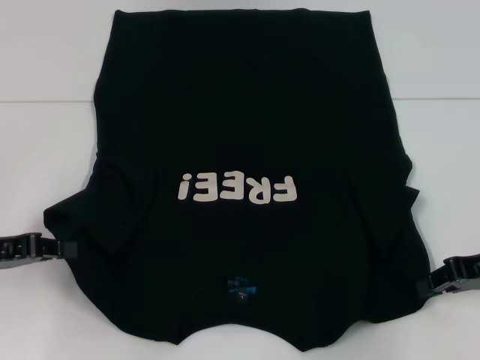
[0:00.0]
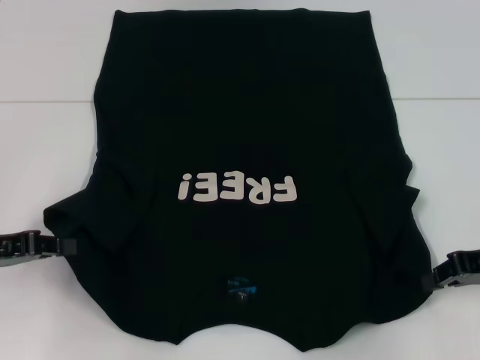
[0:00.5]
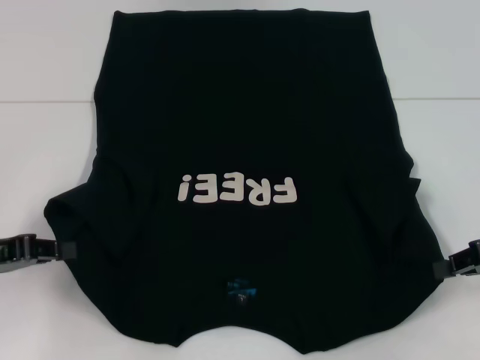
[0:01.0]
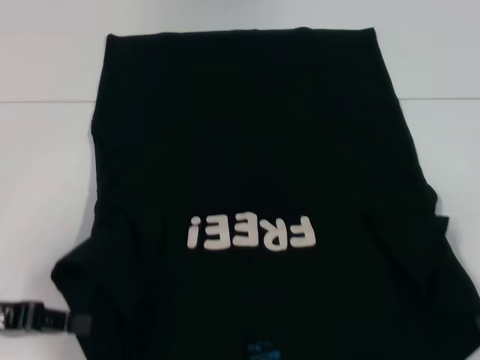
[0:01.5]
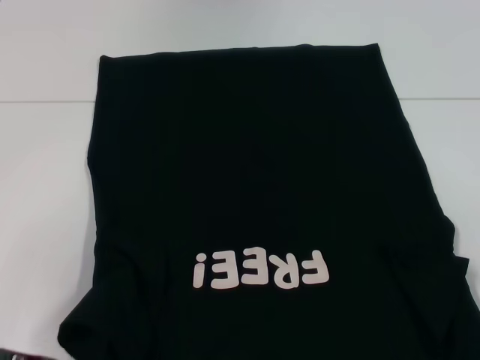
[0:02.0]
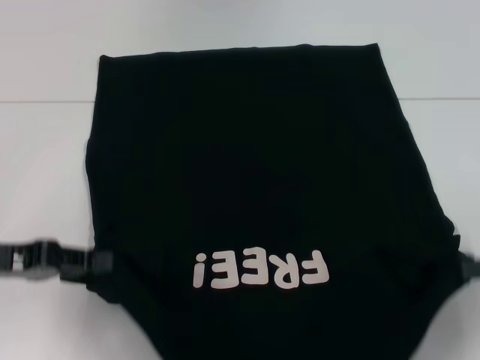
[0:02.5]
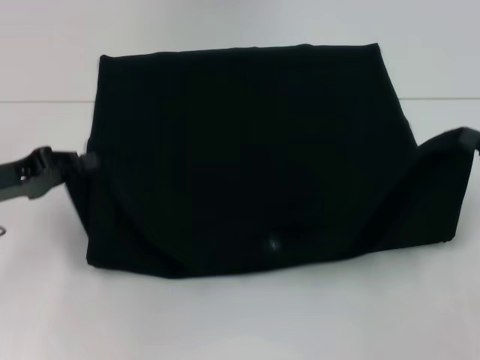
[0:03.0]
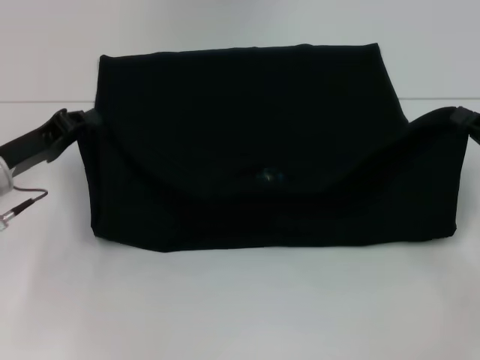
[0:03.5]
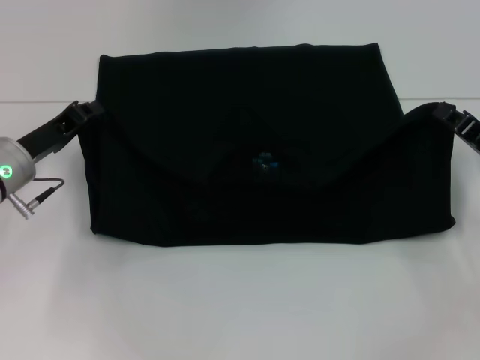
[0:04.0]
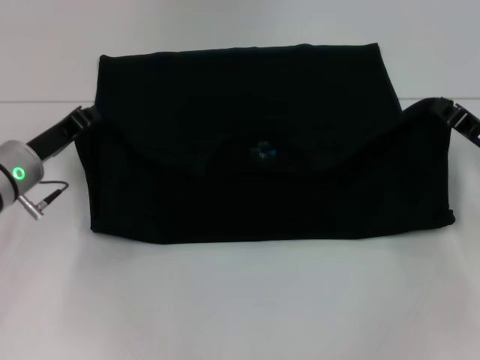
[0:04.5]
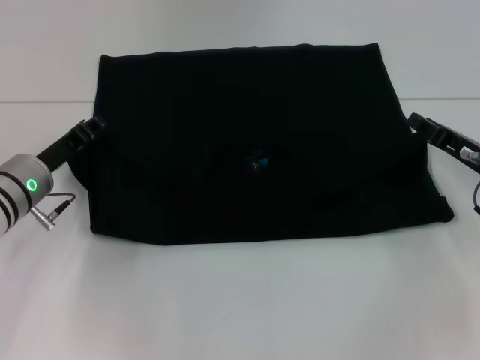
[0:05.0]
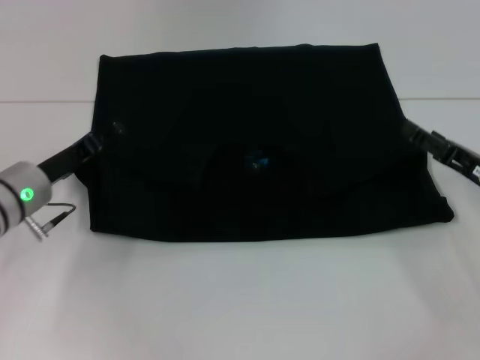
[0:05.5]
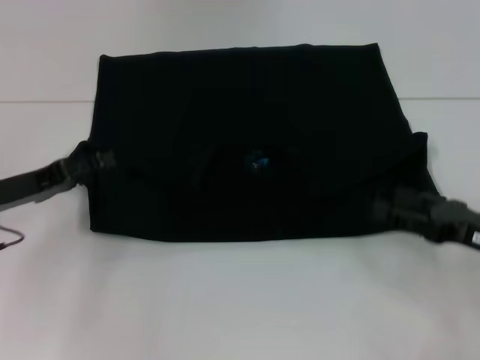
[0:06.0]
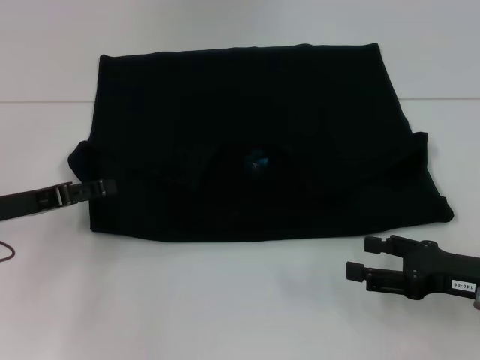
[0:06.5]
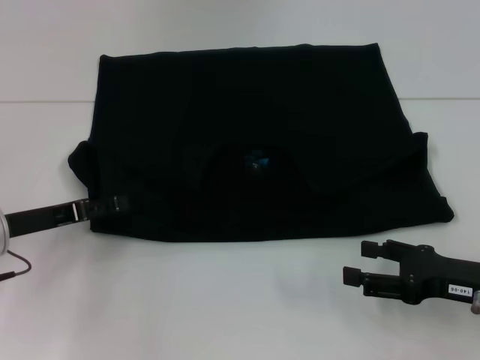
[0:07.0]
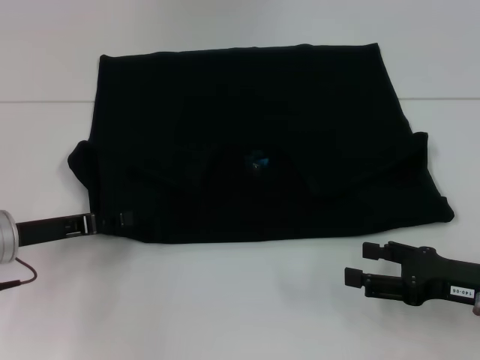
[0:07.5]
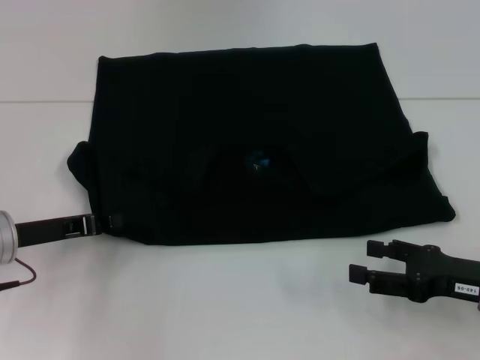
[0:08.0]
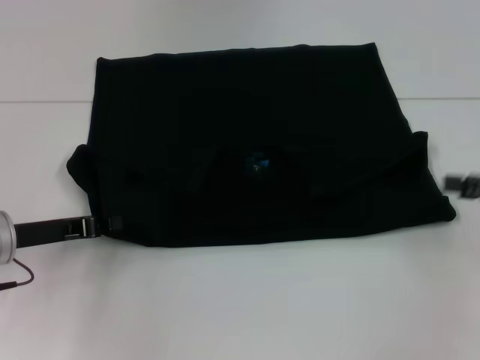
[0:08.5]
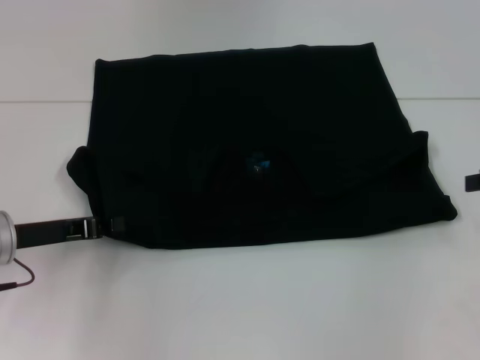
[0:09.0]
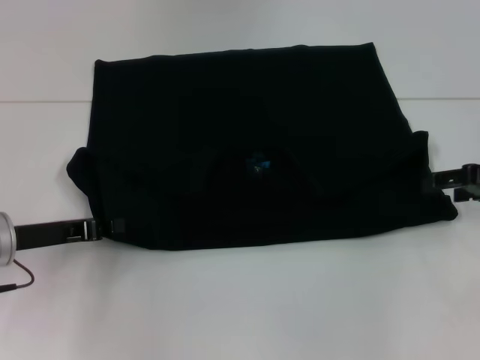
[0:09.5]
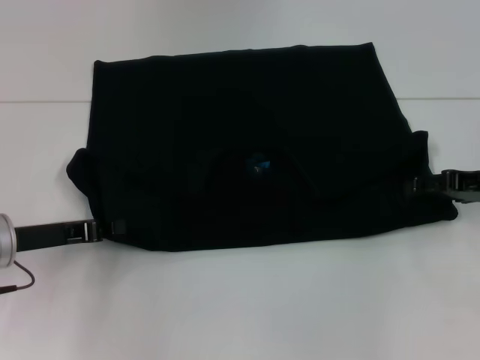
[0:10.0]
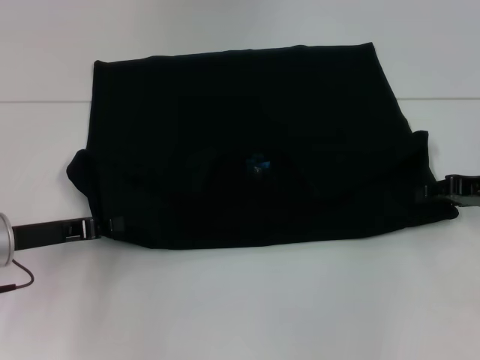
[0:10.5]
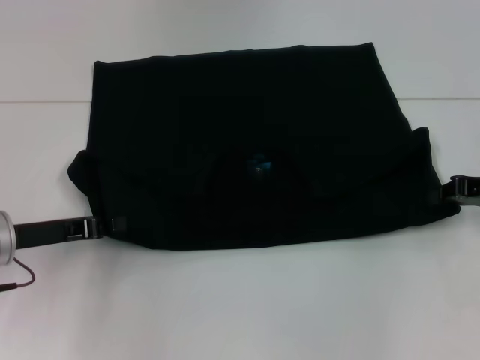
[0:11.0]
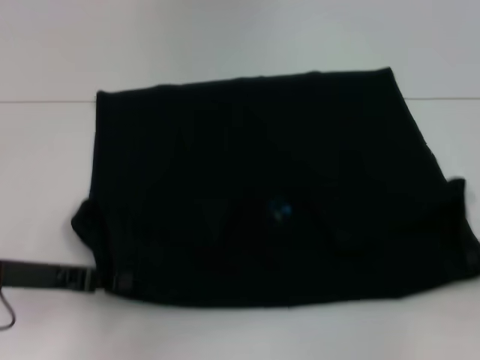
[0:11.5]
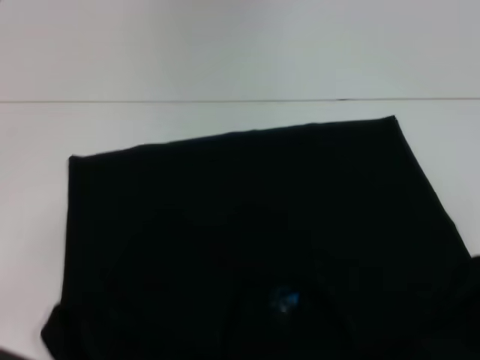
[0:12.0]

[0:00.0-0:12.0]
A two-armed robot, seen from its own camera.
Step, 0:01.0 to 0:05.0: Fold the clothes with your left hand.
Step, 0:01.0 to 0:05.0: Fold the clothes with your right hand.
0:00.0 to 0:02.0: The left gripper heads backward, covering roughly 5 cm, while the right gripper is displaced backward and to the right by some 10 cm.
0:02.0 to 0:04.0: The right gripper heads forward and to the left, covering roughly 10 cm, while the left gripper goes approximately 15 cm forward.
0:04.0 to 0:06.0: The right gripper moves backward, some 5 cm, and opens. The left gripper changes place by approximately 5 cm, and opens.
0:06.0 to 0:08.0: The left gripper closes up.
0:08.0 to 0:10.0: The right gripper heads forward and upward, covering some 15 cm.
0:10.0 to 0:12.0: The left gripper heads backward, covering about 5 cm; the right gripper is displaced backward and to the right by approximately 10 cm, and closes.

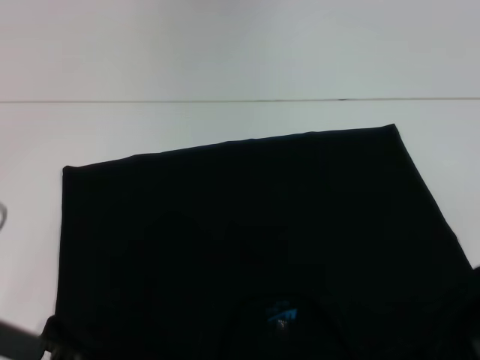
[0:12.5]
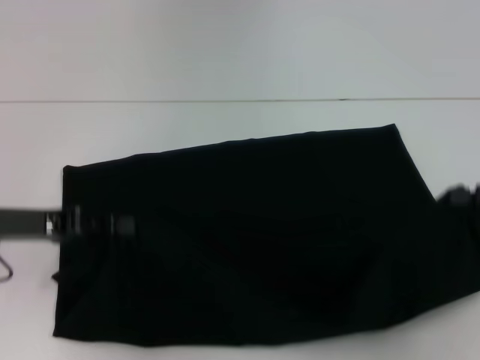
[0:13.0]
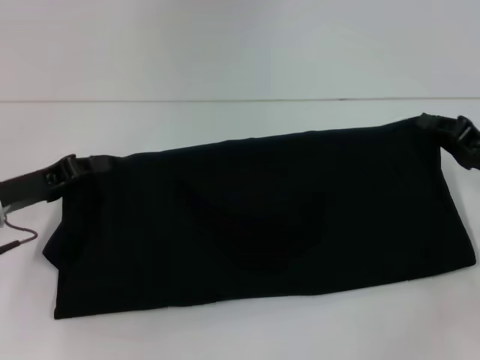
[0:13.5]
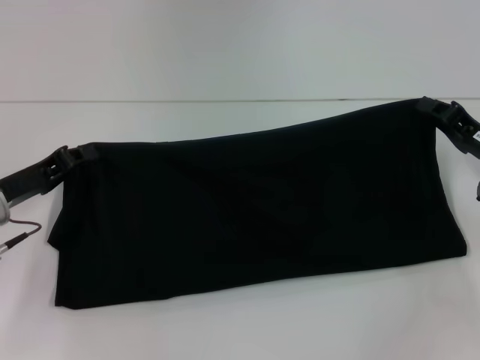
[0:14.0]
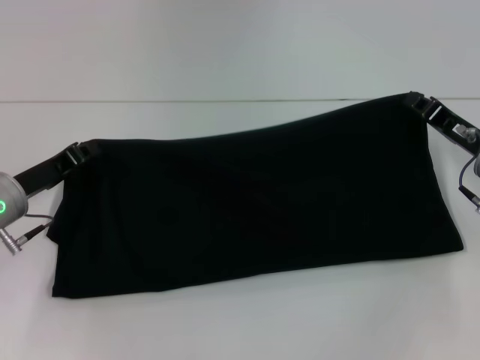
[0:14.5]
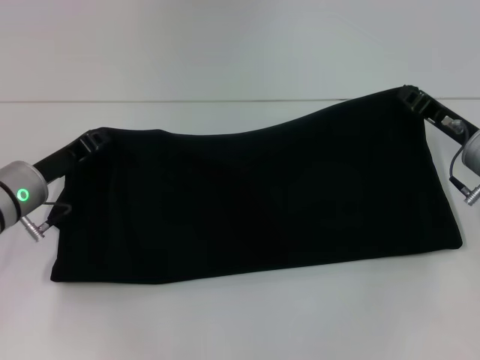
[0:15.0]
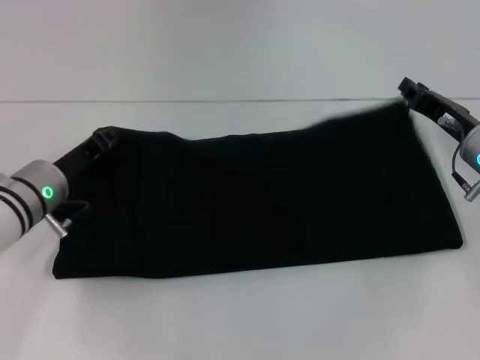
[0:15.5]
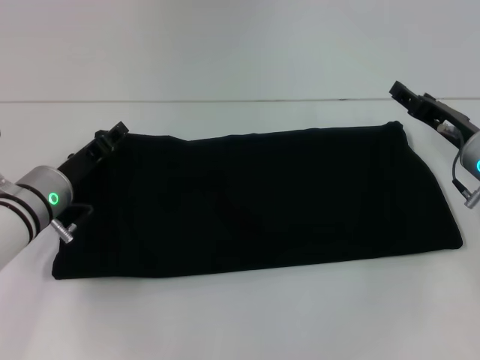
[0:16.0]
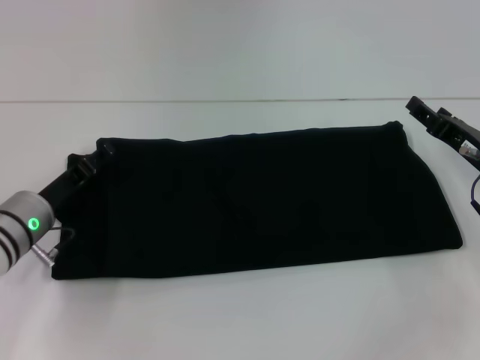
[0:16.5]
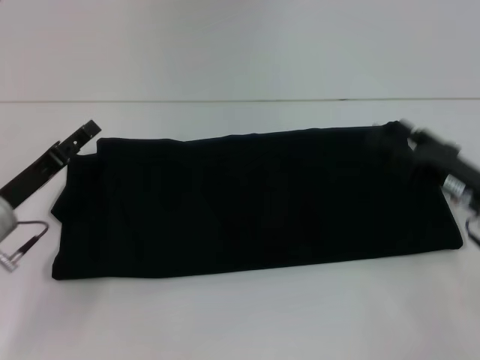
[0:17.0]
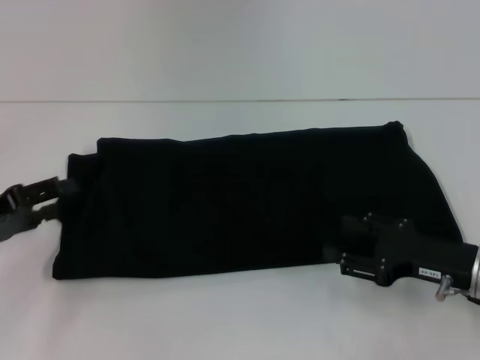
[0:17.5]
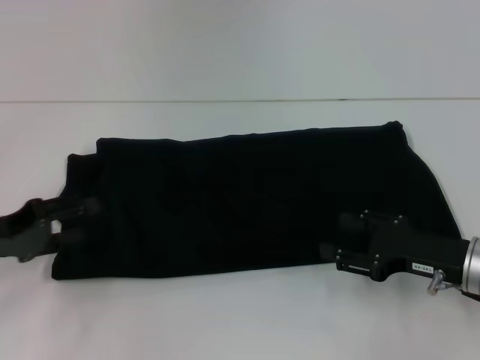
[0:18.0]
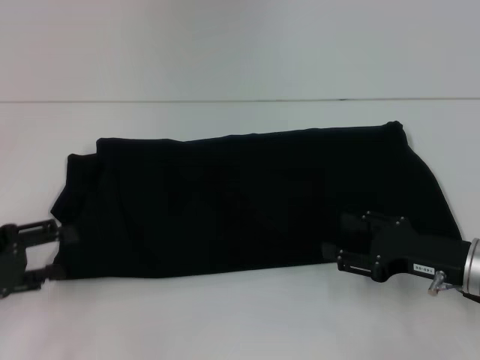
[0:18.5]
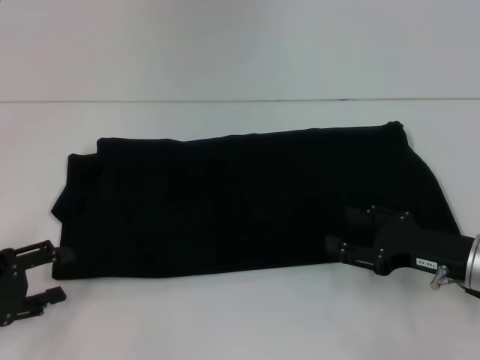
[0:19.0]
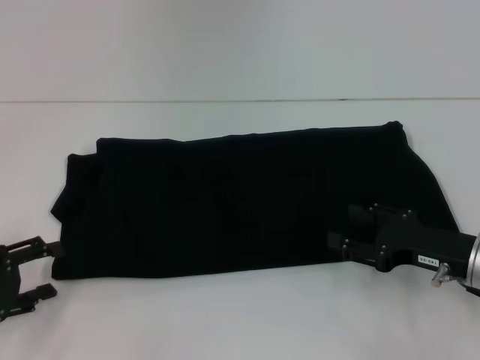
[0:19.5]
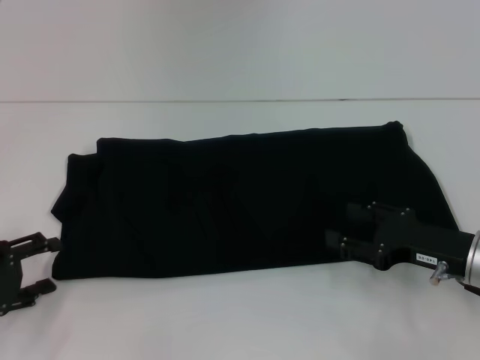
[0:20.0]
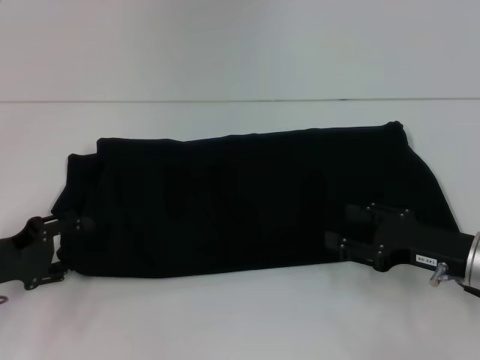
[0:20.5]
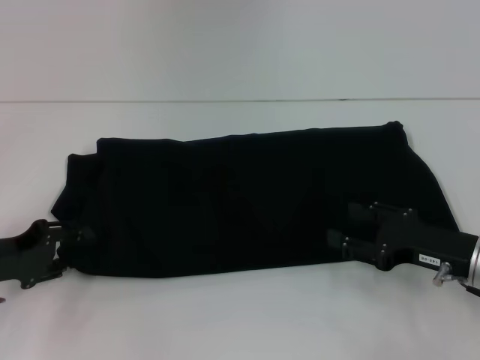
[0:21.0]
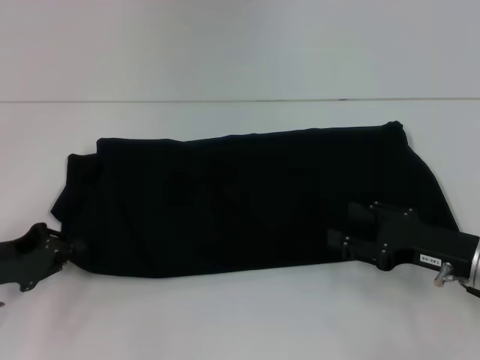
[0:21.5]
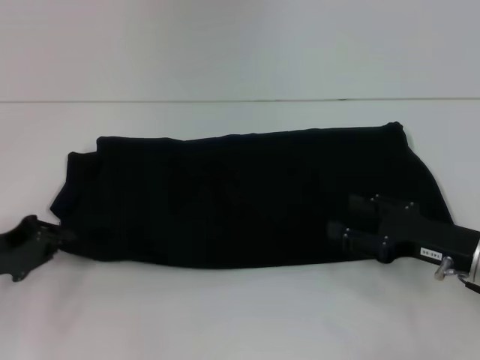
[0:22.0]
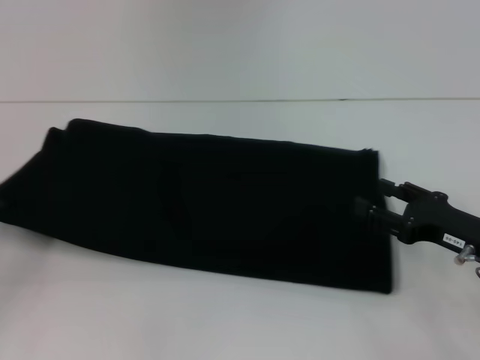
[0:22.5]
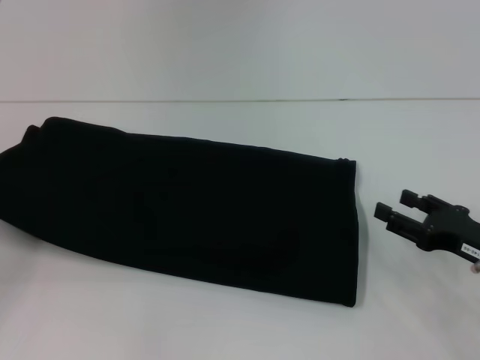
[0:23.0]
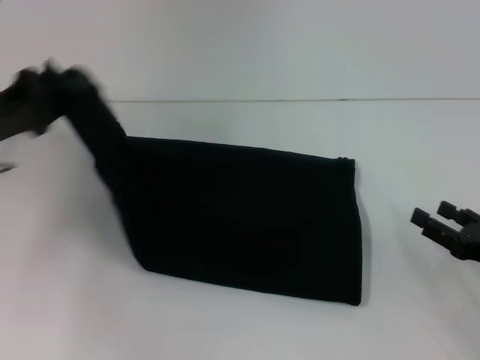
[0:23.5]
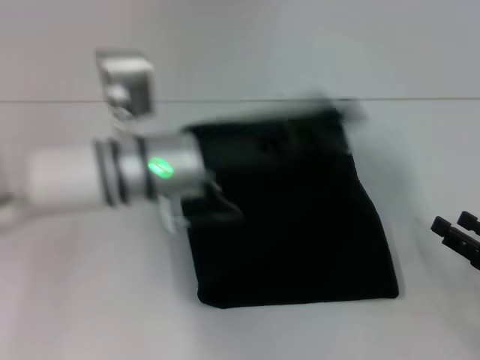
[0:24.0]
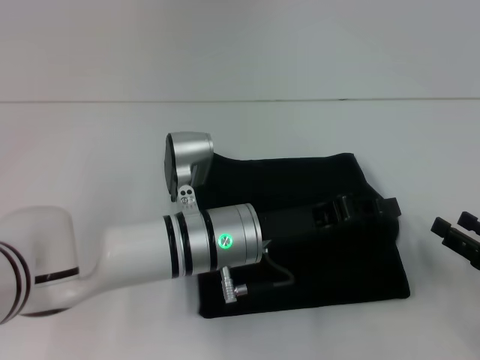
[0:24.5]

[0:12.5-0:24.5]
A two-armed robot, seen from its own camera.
Step, 0:12.5 to 0:16.5: Fold the clothes with your right hand.
0:12.5 to 0:14.5: The right gripper goes about 15 cm forward and to the left, while the left gripper heads forward, covering roughly 10 cm.
0:14.5 to 0:16.5: The right gripper opens, while the left gripper opens up.
0:16.5 to 0:18.5: The left gripper travels to the left, backward and upward by about 15 cm, while the right gripper moves backward, roughly 5 cm.
0:18.5 to 0:20.5: The grippers make only small movements.
0:20.5 to 0:22.5: The left gripper heads to the left, covering some 5 cm, and closes up.
0:22.5 to 0:24.5: The left gripper travels to the right by approximately 35 cm; the right gripper heads to the right and backward, covering about 10 cm.

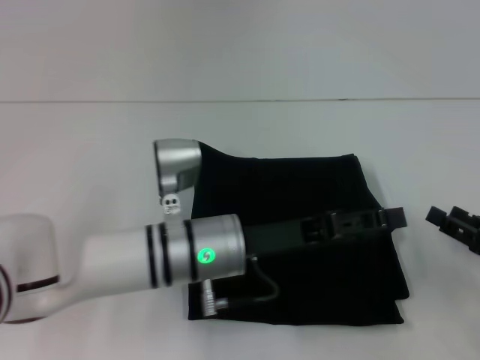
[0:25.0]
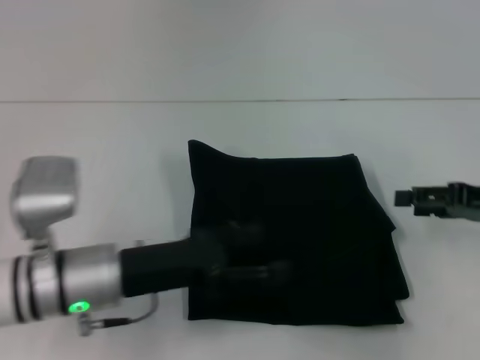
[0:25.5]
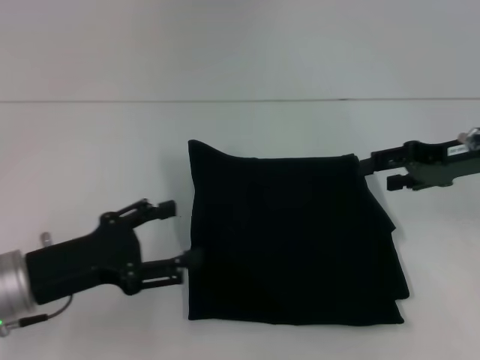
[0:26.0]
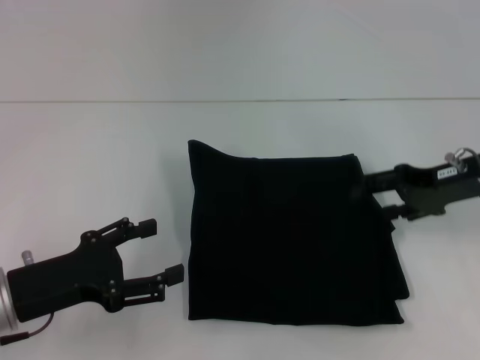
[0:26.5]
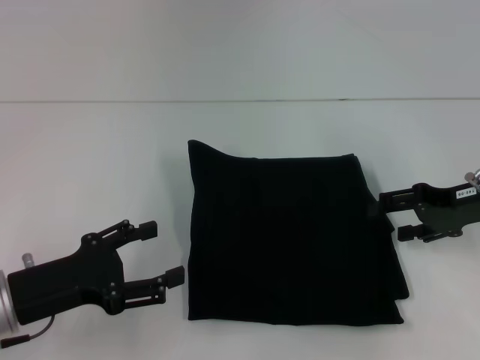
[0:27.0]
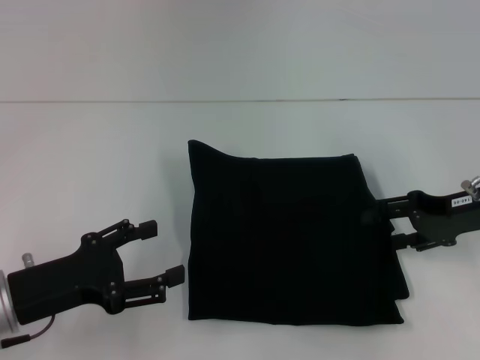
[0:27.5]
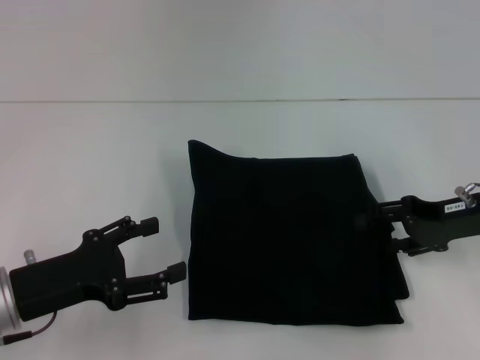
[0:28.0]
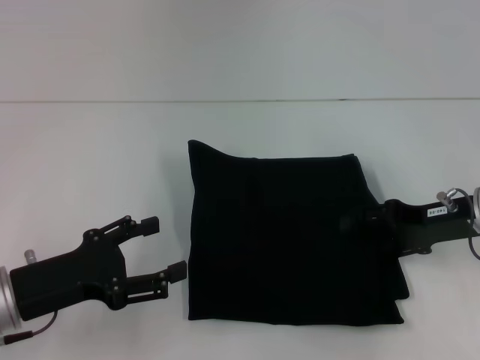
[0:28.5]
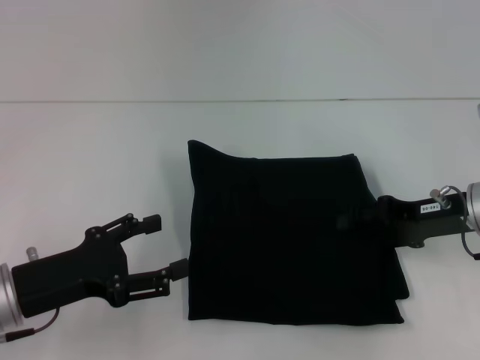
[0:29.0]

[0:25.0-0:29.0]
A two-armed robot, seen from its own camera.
0:25.0 to 0:27.0: The right gripper shifts approximately 15 cm forward and upward. The left gripper heads to the left, covering some 20 cm, and opens up.
0:27.0 to 0:29.0: The grippers make only small movements.
